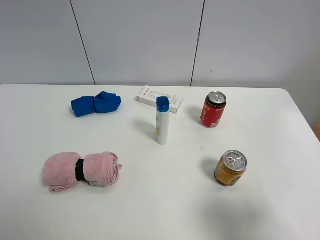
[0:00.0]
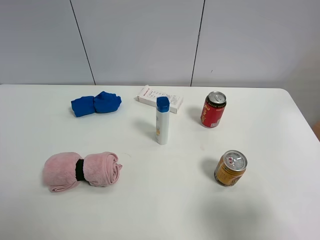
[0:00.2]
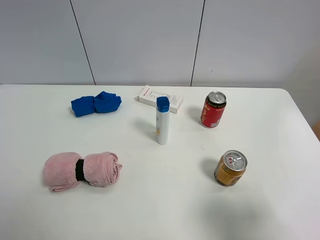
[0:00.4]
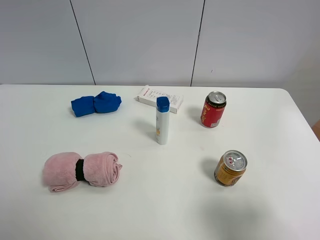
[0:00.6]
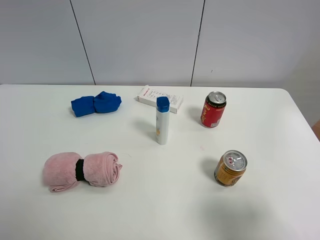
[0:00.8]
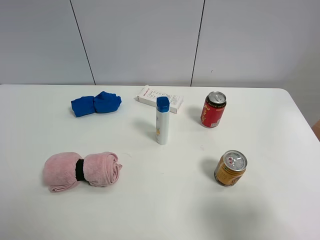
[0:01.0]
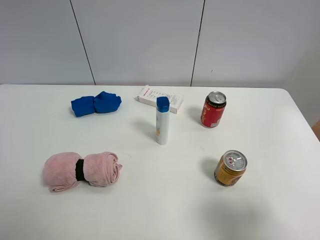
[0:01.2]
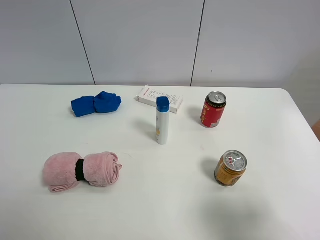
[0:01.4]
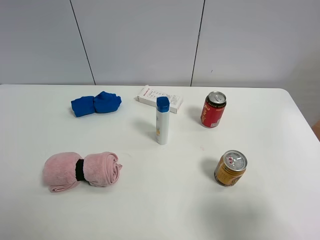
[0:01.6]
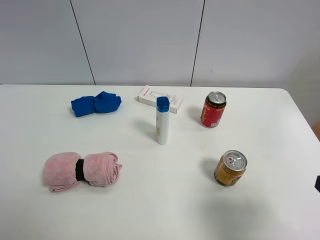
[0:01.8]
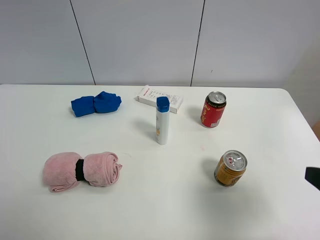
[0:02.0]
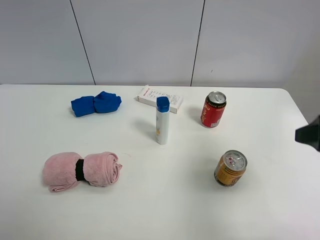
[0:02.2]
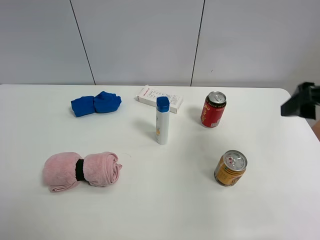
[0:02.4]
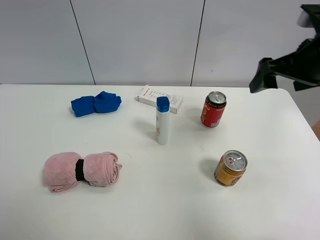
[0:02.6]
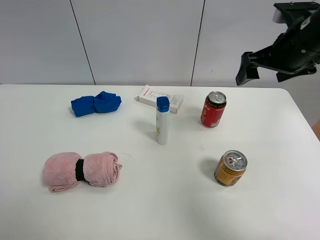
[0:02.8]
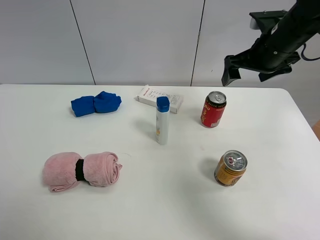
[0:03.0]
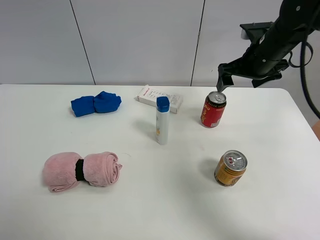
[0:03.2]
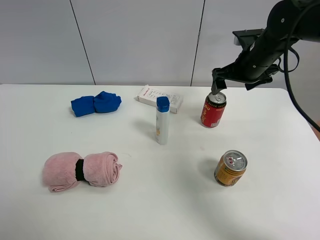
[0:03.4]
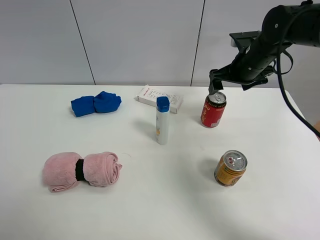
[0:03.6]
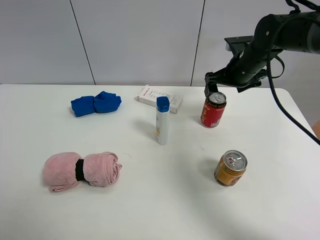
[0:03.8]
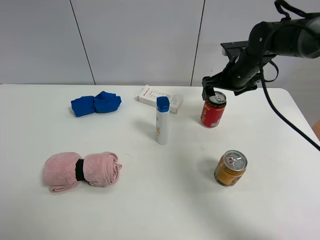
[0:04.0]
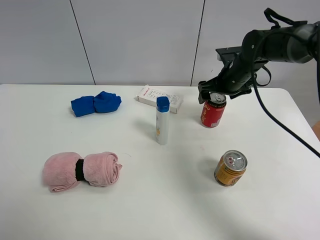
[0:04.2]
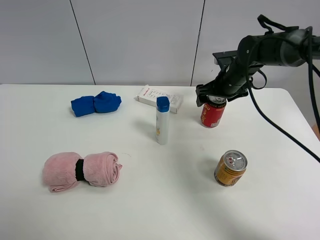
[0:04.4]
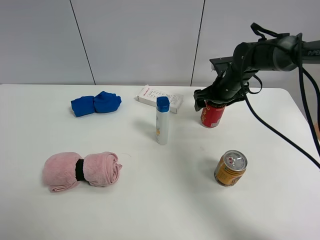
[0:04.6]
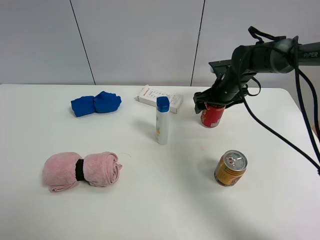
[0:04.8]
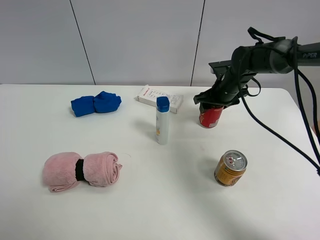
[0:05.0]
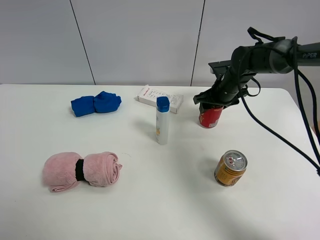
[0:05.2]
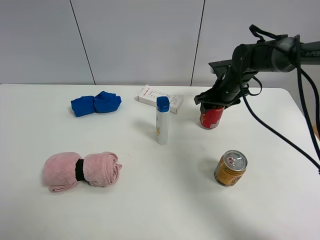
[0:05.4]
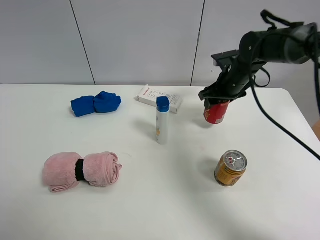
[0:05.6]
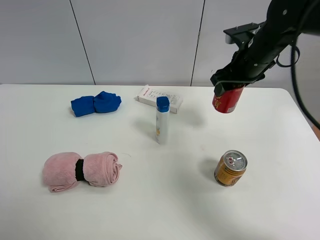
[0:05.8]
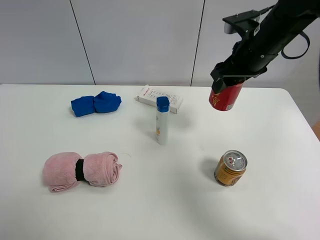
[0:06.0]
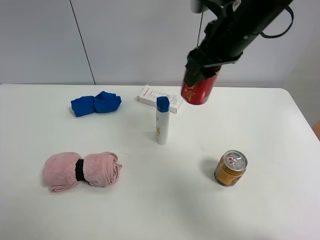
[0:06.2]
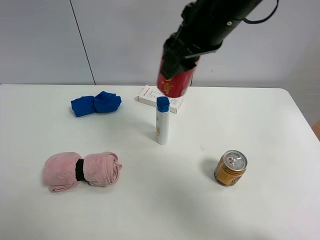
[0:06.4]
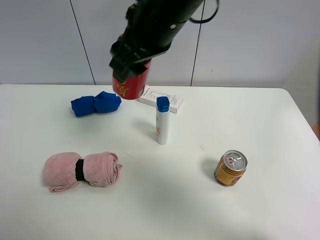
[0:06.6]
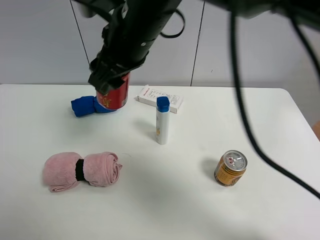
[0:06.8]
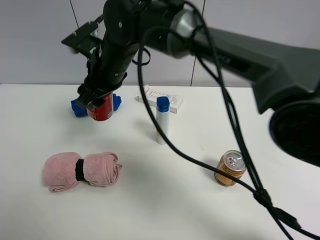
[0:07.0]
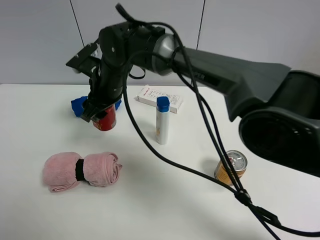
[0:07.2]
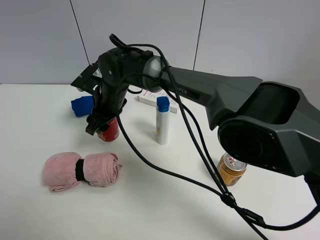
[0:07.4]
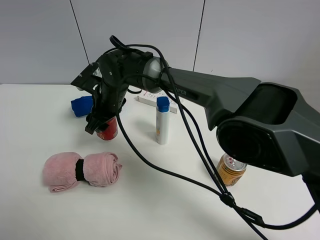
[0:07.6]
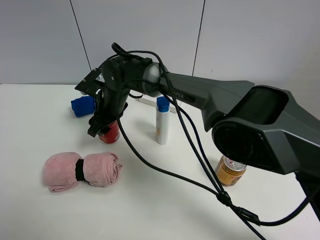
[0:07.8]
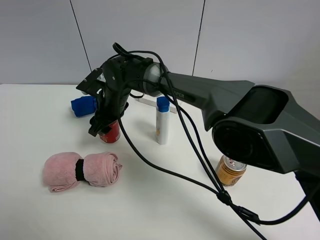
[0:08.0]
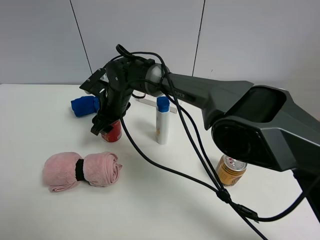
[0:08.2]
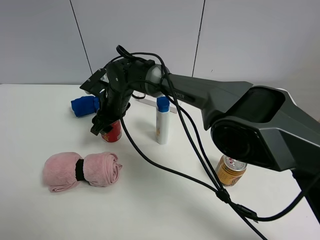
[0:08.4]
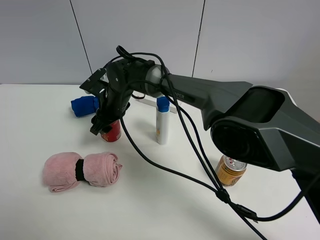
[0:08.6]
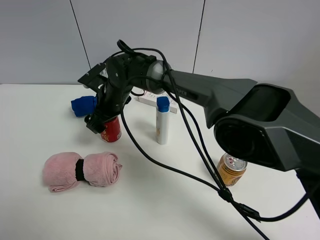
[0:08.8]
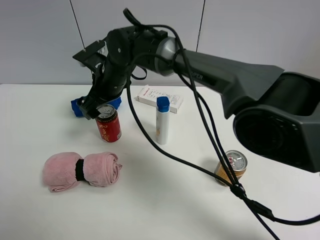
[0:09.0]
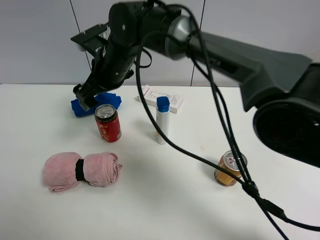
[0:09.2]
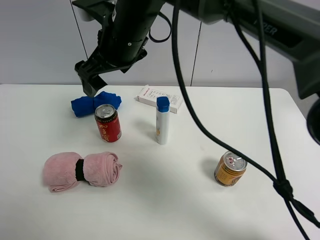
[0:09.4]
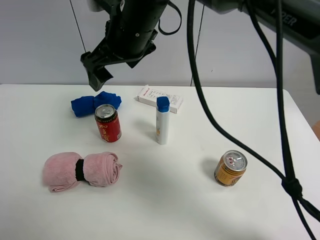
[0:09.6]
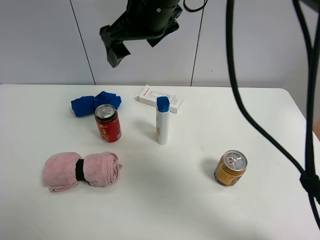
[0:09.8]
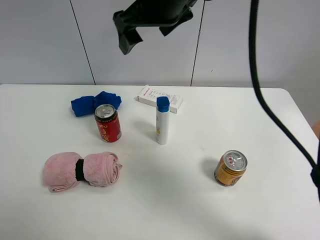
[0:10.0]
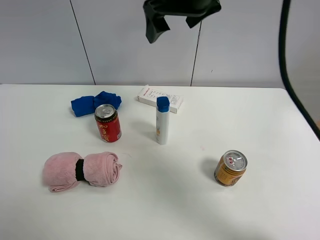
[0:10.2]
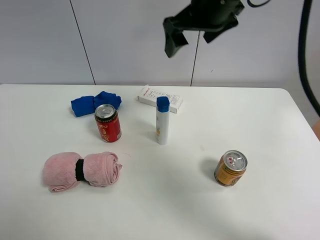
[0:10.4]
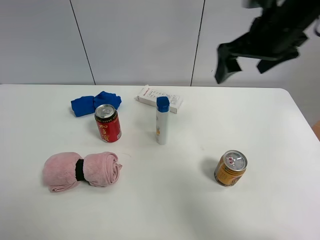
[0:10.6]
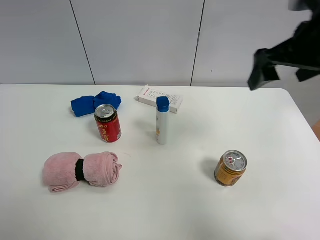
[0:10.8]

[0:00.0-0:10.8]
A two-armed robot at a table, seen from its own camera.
Task of the whole recording: the gripper move the object.
Step, 0:00.0 to 0:05.0: Grasp the Jia Duo Bao with the right gripper.
Step, 0:05.2 to 0:08.8: Place the Jia Duo Bao on the table with the right gripper.
0:00.0 to 0:01.6: Both grippers stay put.
0:01.6 to 0:03.0: The right gripper travels forward by roughly 35 cm.
0:03.0 to 0:04.6: The right gripper shifts approximately 15 cm downward and forward.
0:04.6 to 0:06.2: The right gripper shifts some 20 cm upward and backward, and closes its fingers.
0:06.2 to 0:07.8: The right gripper moves to the left and downward, approximately 30 cm.
0:07.8 to 0:09.2: The right gripper goes roughly 10 cm upward, and opens its fingers.
0:09.2 to 0:10.8: The right gripper shifts some 30 cm to the right.

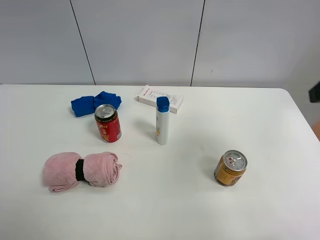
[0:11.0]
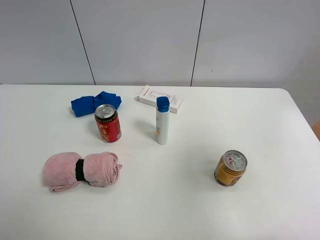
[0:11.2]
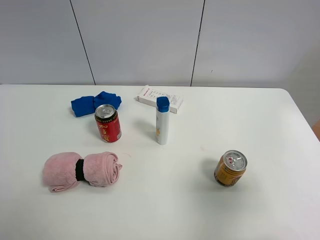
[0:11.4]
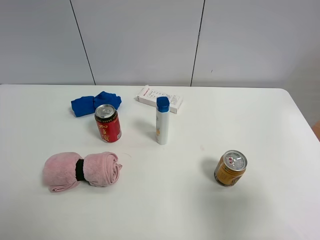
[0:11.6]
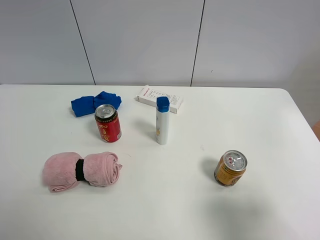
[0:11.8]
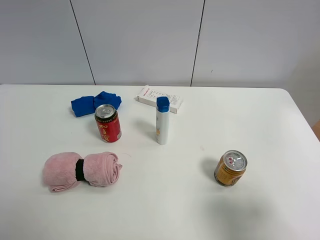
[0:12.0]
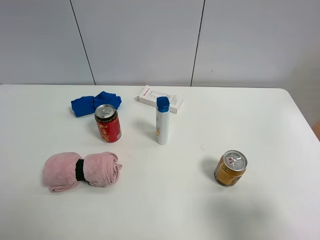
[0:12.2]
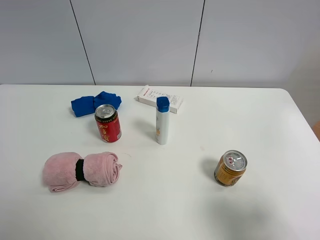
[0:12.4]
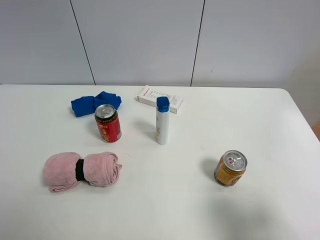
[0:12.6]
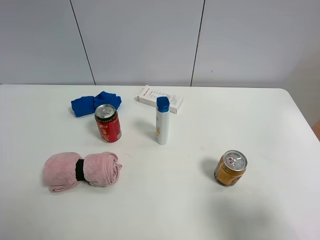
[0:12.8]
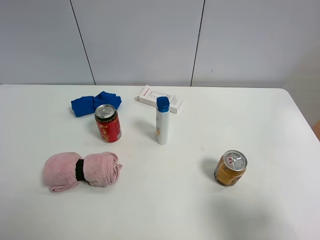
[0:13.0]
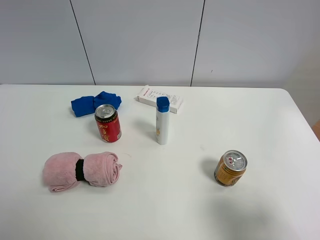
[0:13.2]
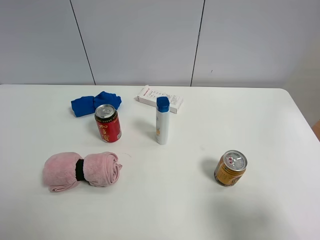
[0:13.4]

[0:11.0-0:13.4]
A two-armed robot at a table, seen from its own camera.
Task of the whole recording: the gripper move the object.
0:11.0 to 0:12.2: The right gripper shifts about 20 cm backward and downward.

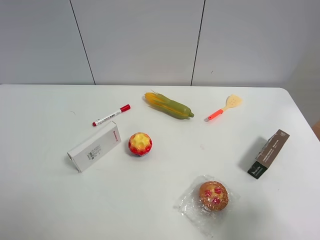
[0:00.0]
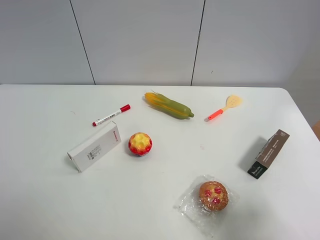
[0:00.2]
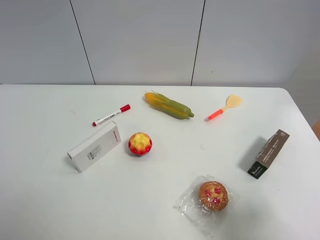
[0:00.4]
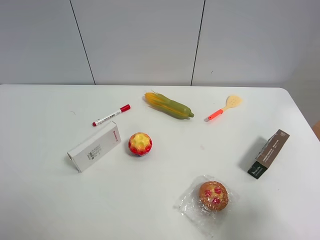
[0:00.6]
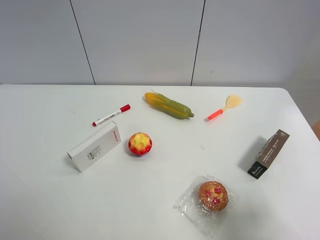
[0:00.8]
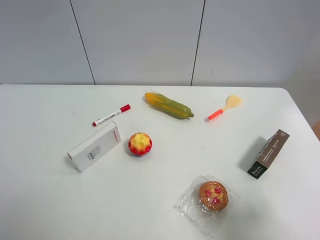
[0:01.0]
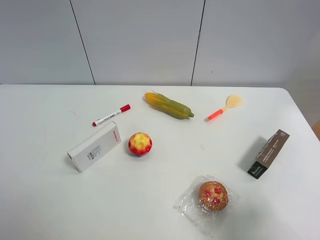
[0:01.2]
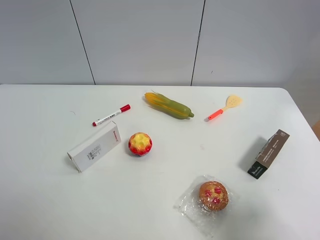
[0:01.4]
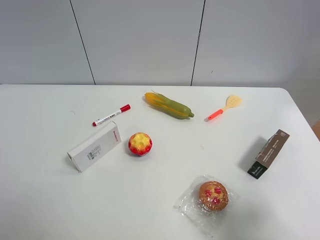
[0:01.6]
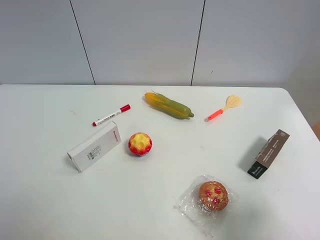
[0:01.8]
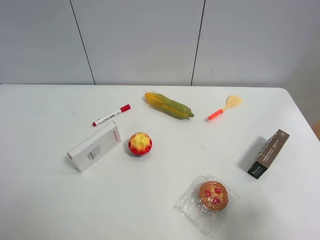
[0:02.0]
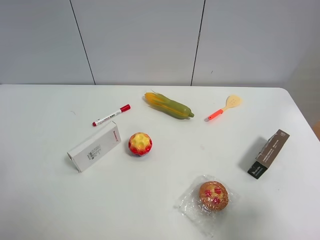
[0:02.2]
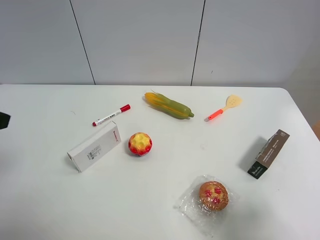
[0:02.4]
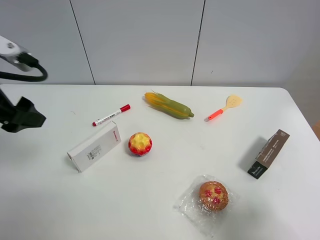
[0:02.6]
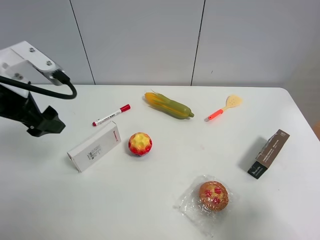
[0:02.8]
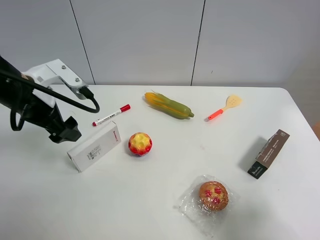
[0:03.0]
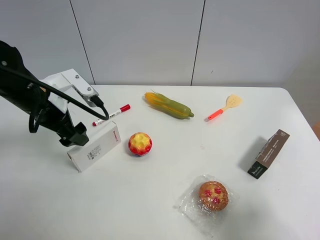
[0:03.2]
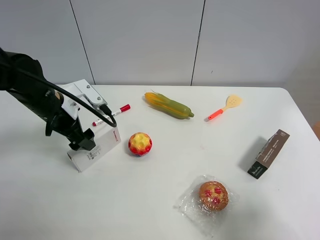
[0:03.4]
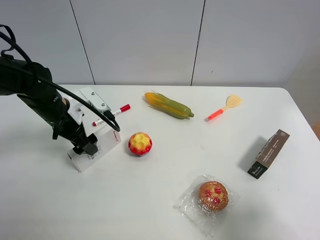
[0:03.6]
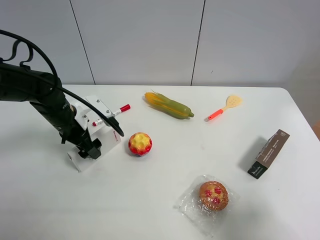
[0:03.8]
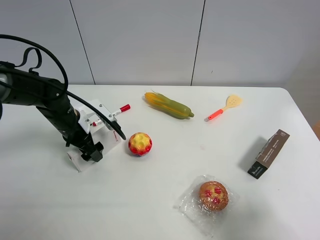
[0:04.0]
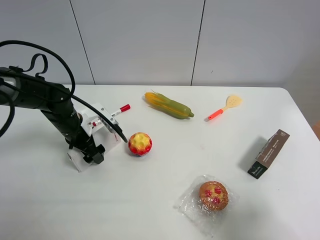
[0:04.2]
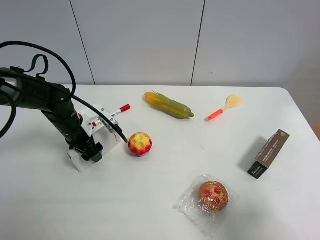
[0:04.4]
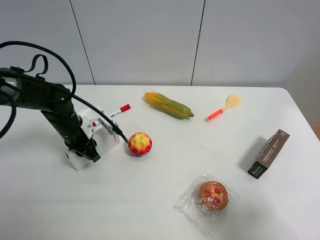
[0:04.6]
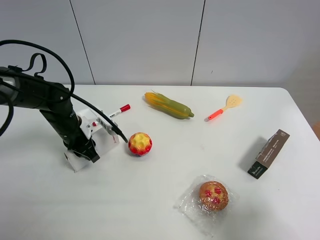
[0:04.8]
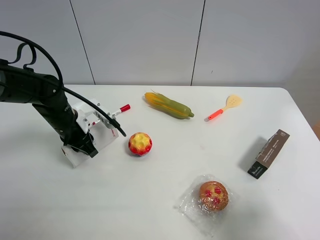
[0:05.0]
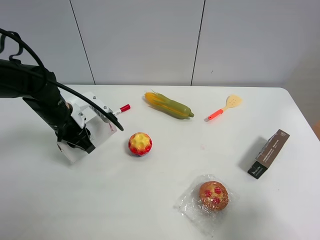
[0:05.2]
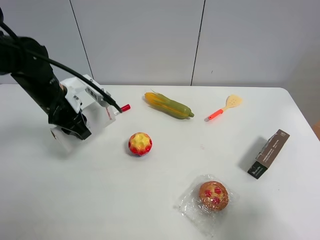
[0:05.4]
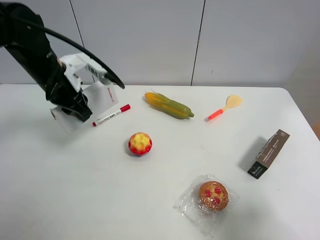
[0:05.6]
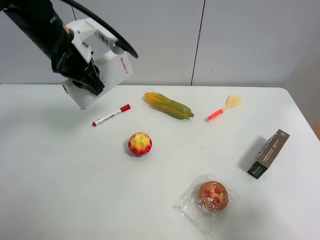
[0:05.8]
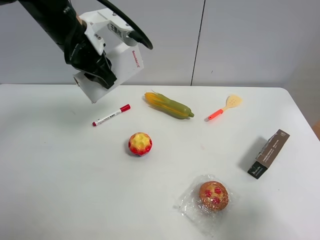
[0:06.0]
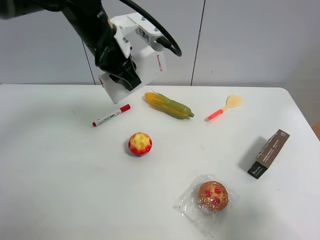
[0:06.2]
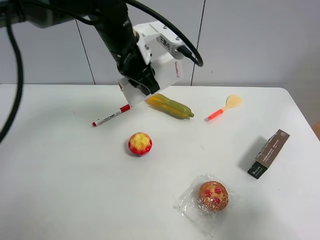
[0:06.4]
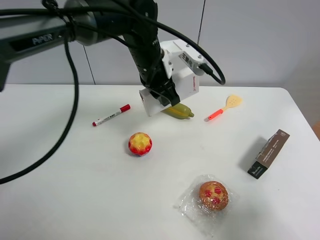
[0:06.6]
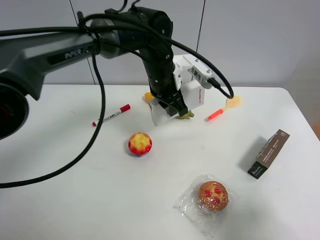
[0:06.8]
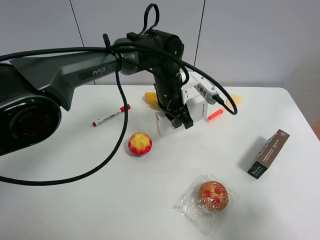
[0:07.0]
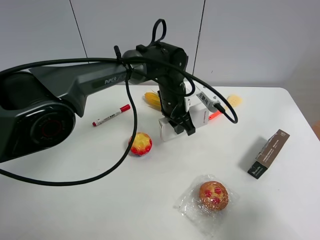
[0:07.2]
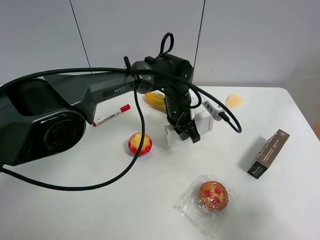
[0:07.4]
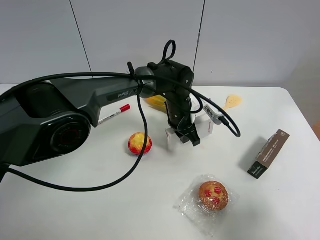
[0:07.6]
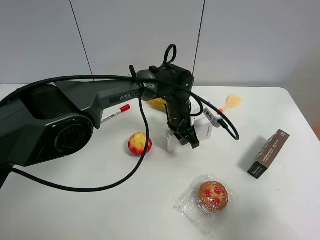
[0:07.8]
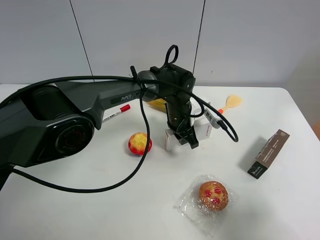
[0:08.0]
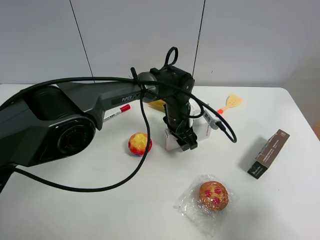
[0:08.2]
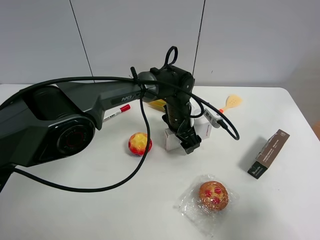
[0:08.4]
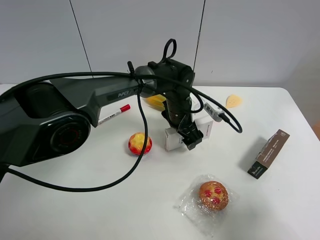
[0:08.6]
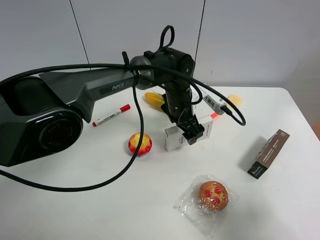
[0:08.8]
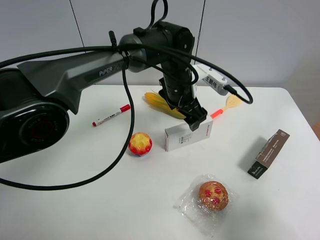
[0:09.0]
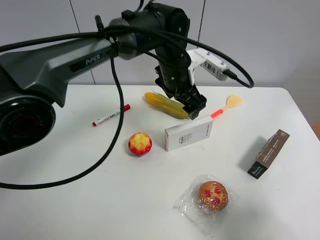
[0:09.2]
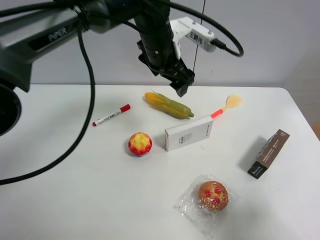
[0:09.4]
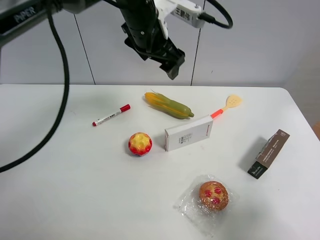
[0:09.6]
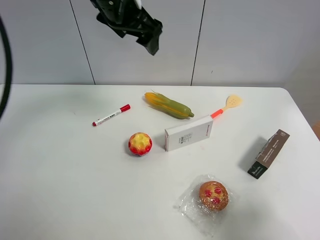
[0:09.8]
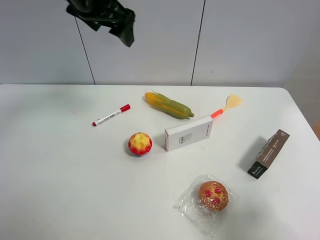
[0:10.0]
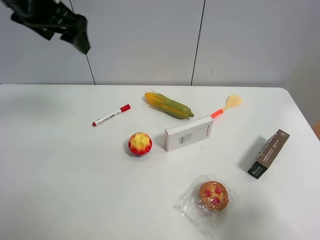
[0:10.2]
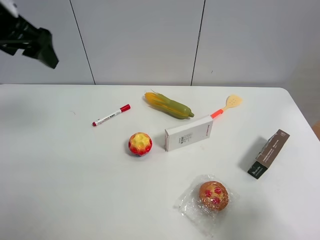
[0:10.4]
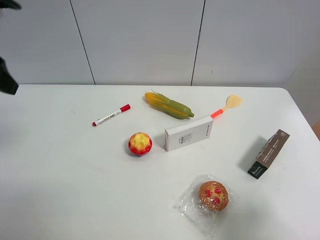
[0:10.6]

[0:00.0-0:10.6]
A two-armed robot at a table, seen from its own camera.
Task of the whole recording: the gripper move the object.
Step, 0:00.0 to 0:04.6: Grasp the USB box with the left gripper.
Step, 0:04.8 to 0:08.4: Place the USB box on the table with the left gripper.
0:00.0 to 0:01.6: The two grippers keep their place.
0:01.6 to 0:03.0: The left gripper shifts approximately 25 cm forward.
0:03.0 to 0:04.6: The left gripper is displaced downward by roughly 15 cm, and closes.
0:04.6 to 0:06.0: The left gripper heads upward, covering approximately 20 cm.
0:06.0 to 0:07.6: The left gripper goes approximately 30 cm to the right and downward.
0:07.6 to 0:09.0: The left gripper goes approximately 10 cm upward, and opens.
0:09.0 to 0:10.6: The left gripper heads to the left and upward, covering approximately 40 cm.
